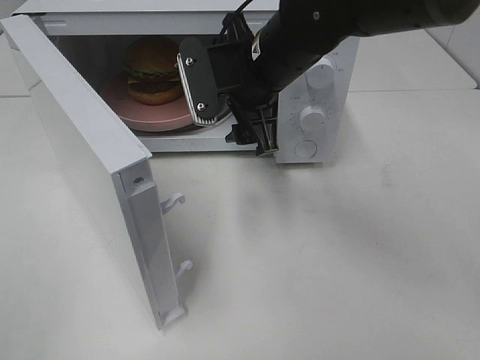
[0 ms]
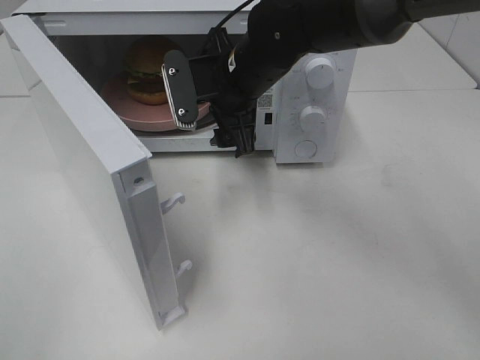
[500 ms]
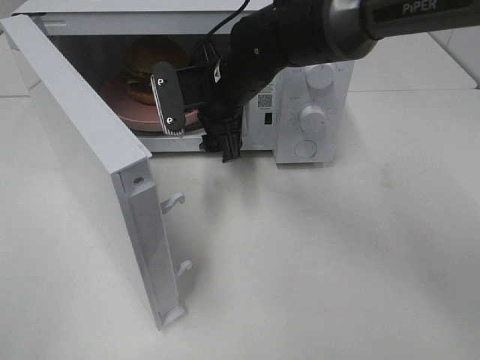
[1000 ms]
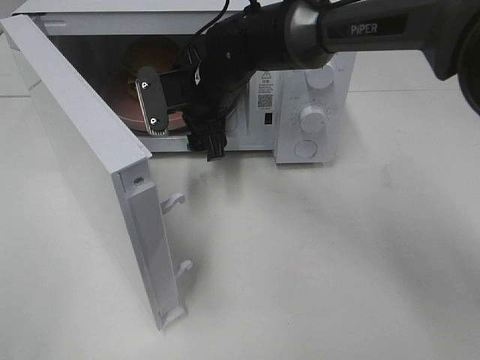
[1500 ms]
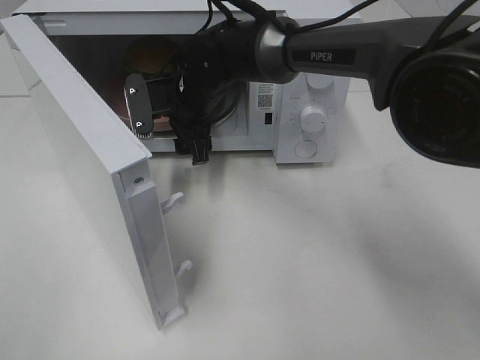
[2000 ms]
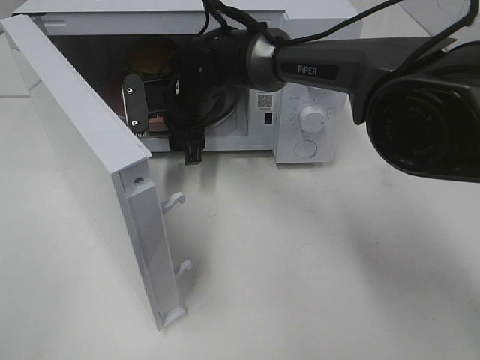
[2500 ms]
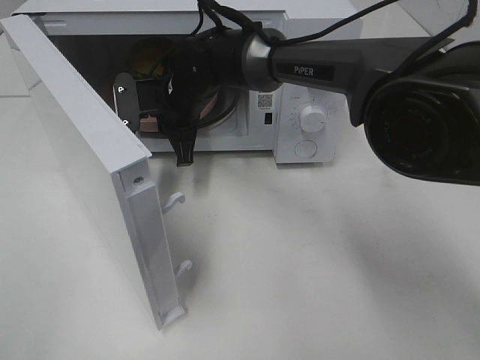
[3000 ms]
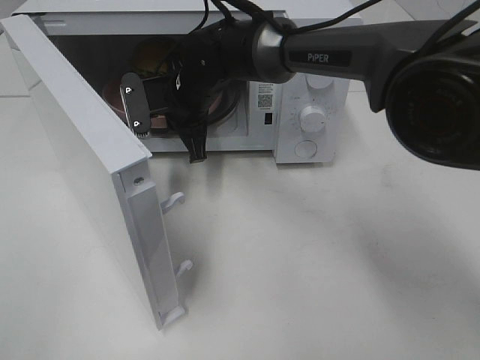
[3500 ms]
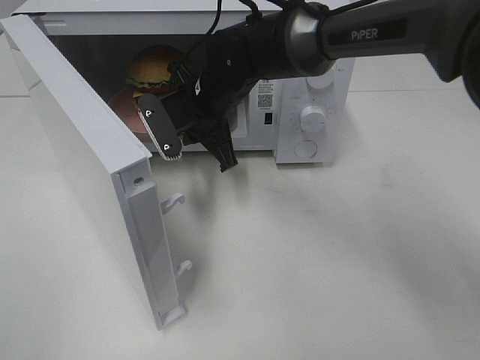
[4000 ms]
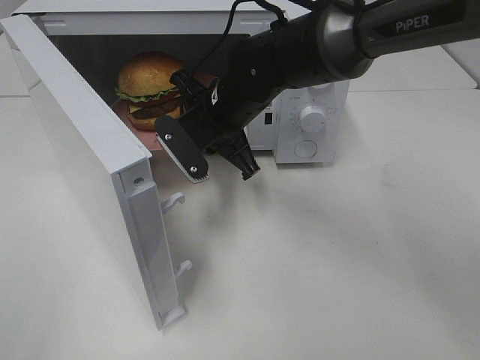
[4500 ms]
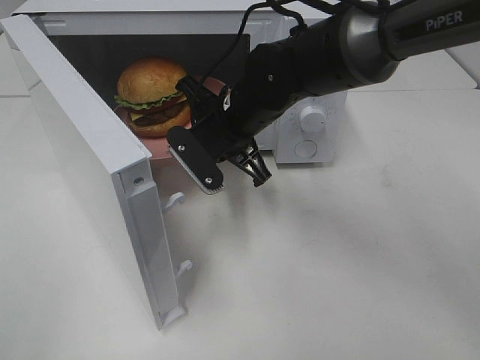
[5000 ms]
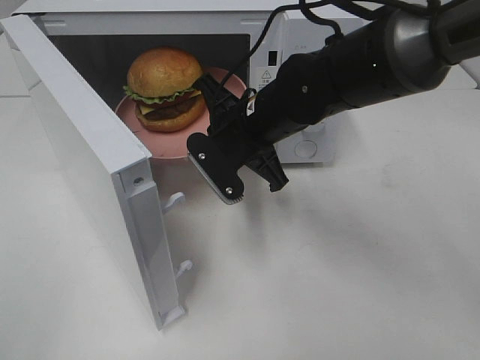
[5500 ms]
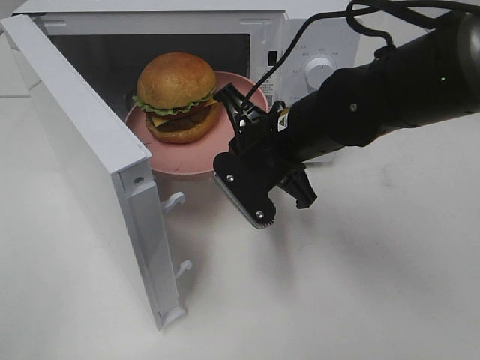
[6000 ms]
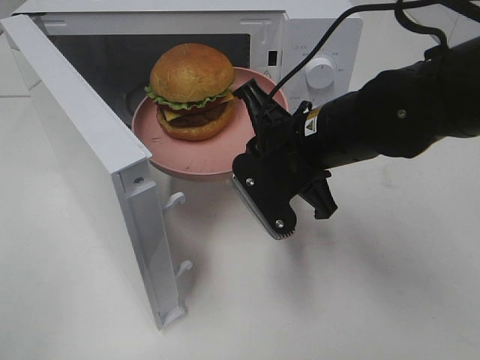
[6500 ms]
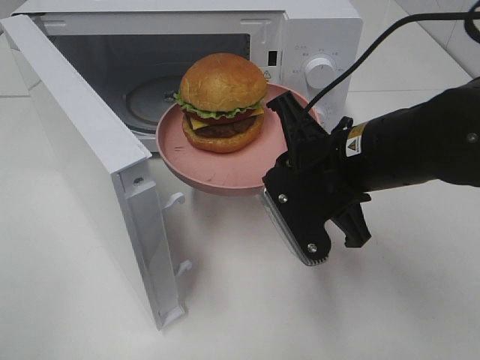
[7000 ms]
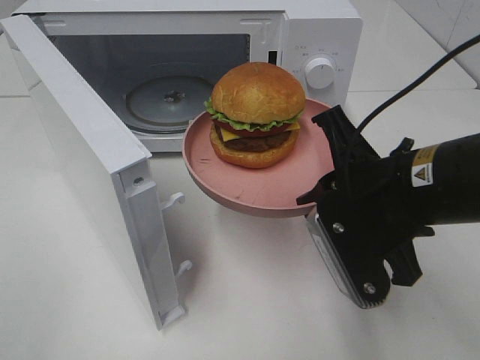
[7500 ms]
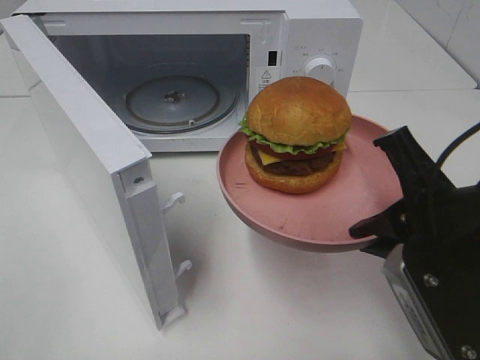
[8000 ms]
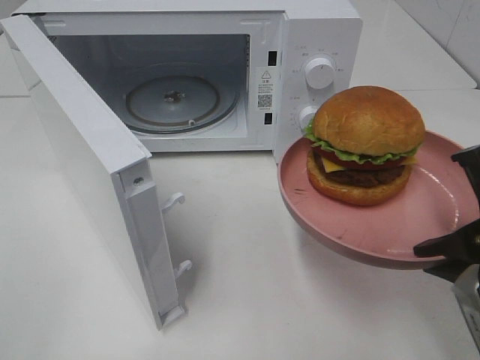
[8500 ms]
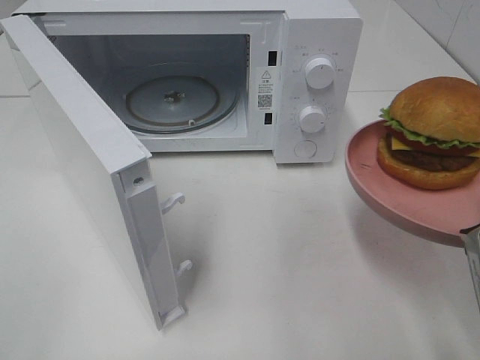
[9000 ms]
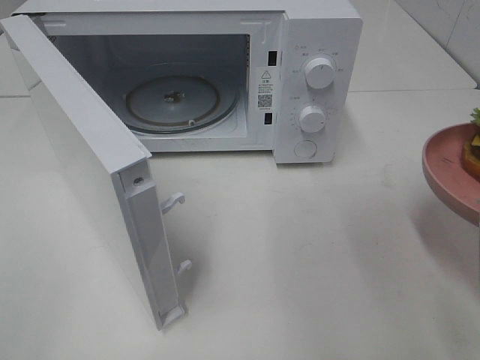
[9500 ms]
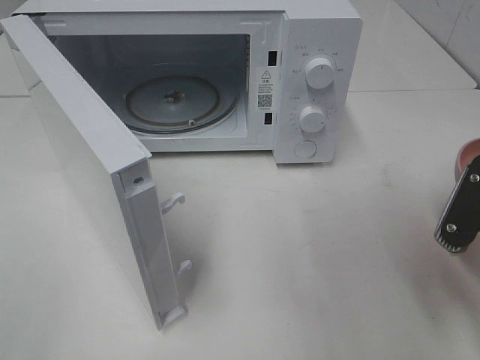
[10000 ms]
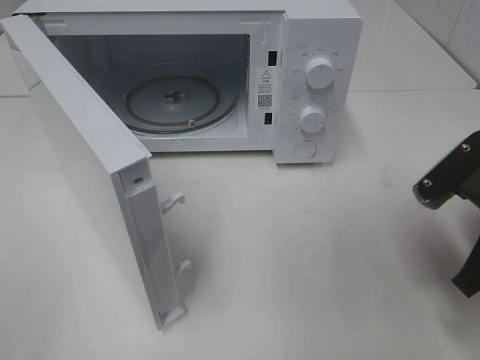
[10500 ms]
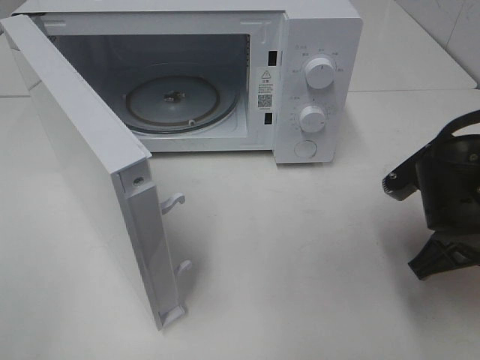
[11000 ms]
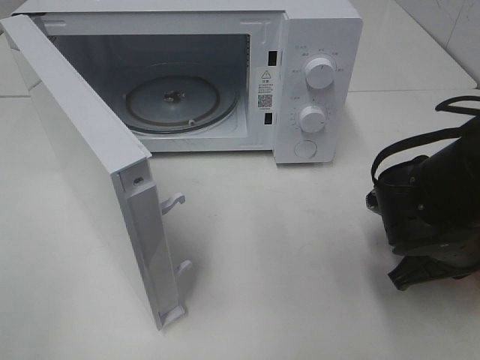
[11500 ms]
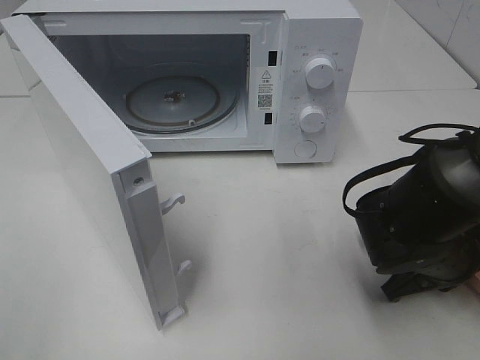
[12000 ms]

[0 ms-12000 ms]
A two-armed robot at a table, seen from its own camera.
Task of the whole recording: Heat the burger.
Step, 0 ms to 3000 ms: Right hand: grab the plate with the hamburger.
0 ms to 2000 ms: The right gripper shifts approximately 15 cm forward, to the left and downward.
2000 ms to 4000 ms: The right gripper closes.
4000 ms to 6000 ms: The right gripper travels backward and to the right by about 15 cm.
6000 ms to 8000 ms: The right gripper shifts roughly 20 cm backward and to the right.
8000 ms to 10000 ms: The right gripper travels to the right by some 5 cm.
10000 ms to 12000 ms: The right gripper is displaced downward and forward by roughly 15 cm.

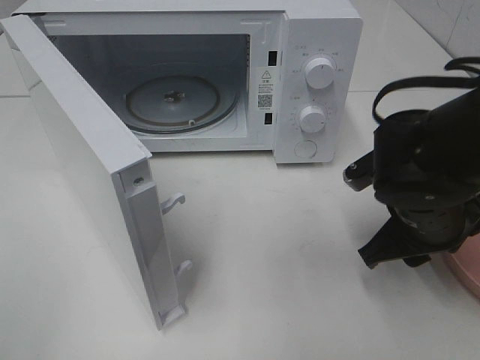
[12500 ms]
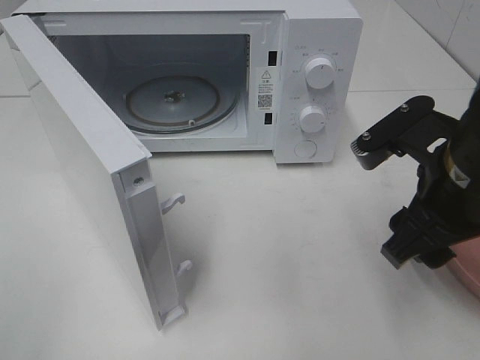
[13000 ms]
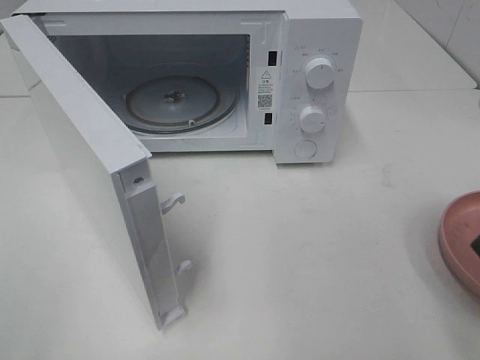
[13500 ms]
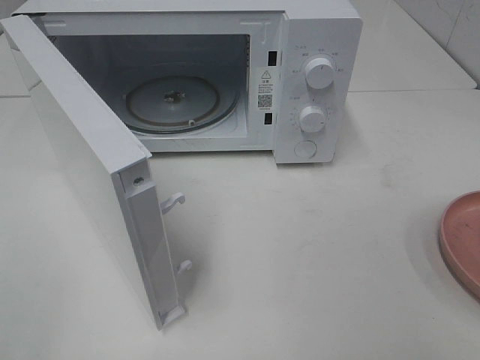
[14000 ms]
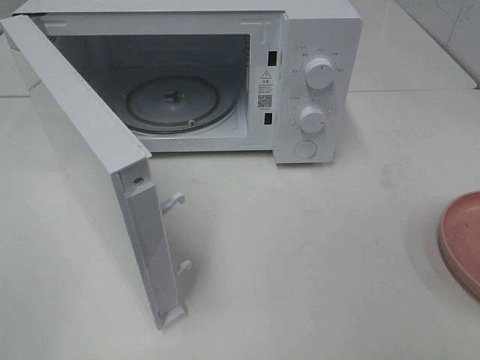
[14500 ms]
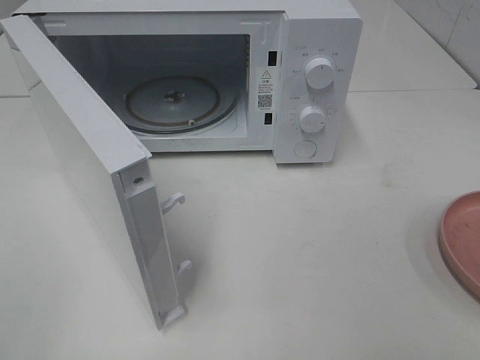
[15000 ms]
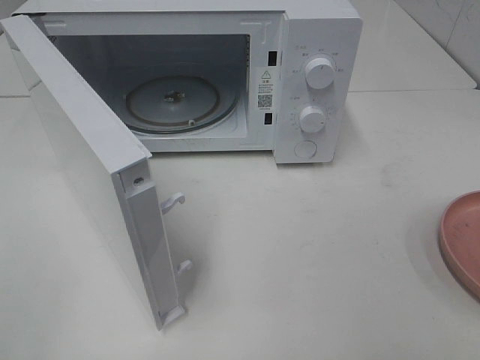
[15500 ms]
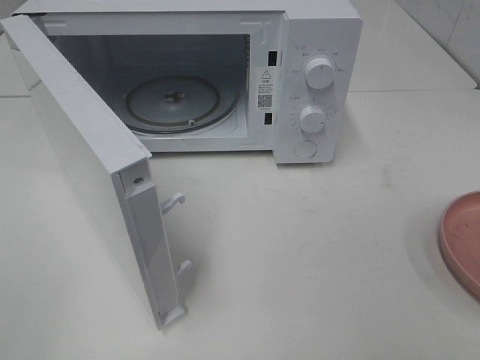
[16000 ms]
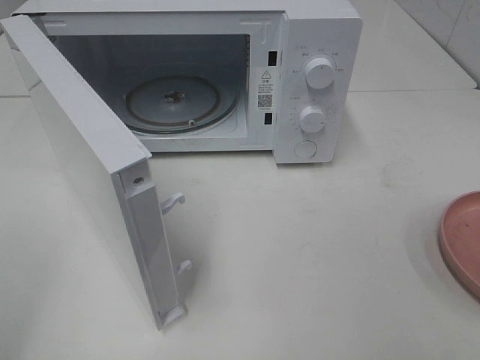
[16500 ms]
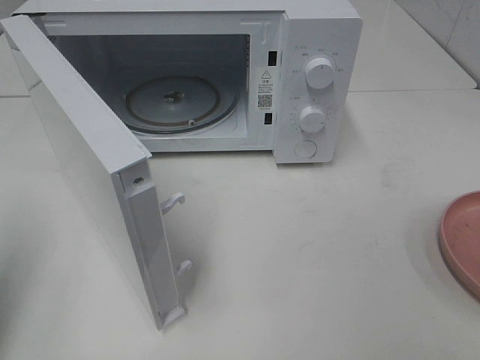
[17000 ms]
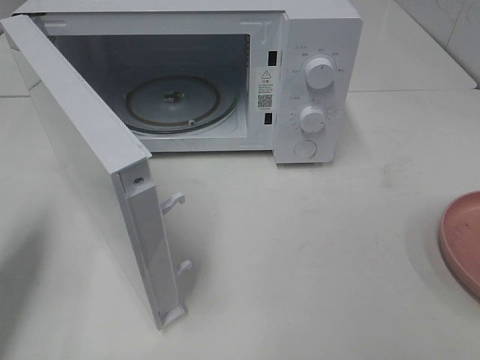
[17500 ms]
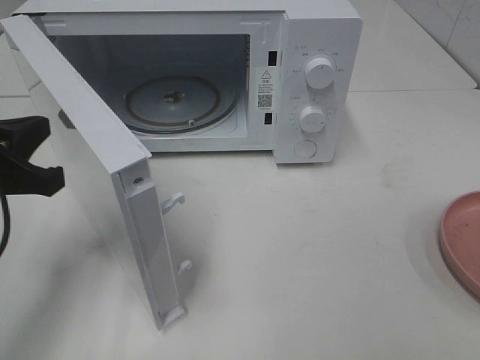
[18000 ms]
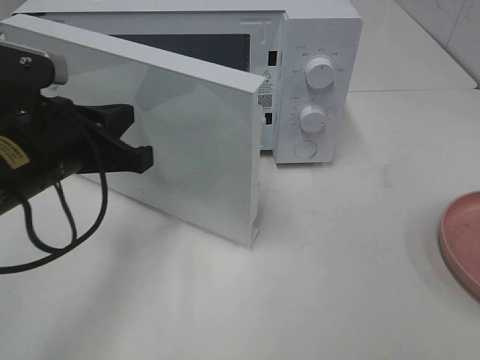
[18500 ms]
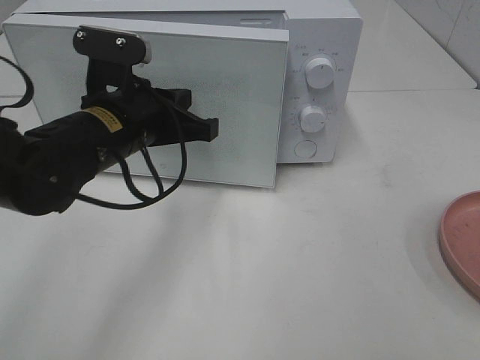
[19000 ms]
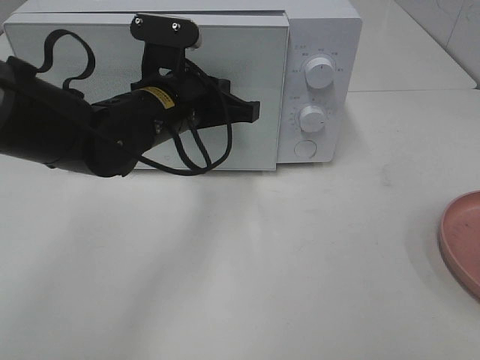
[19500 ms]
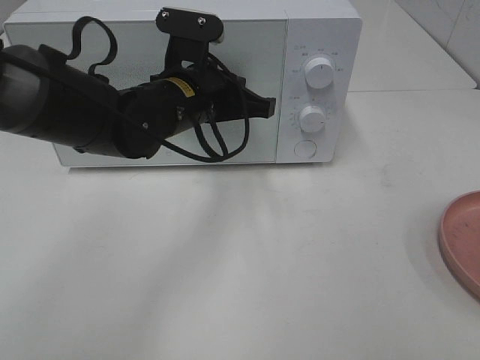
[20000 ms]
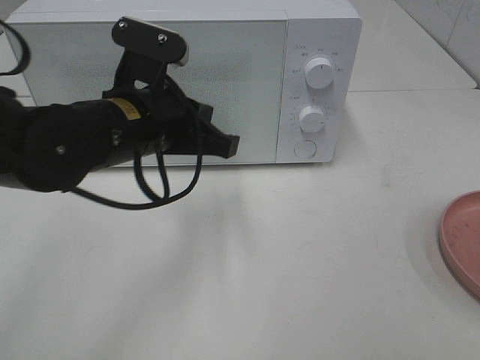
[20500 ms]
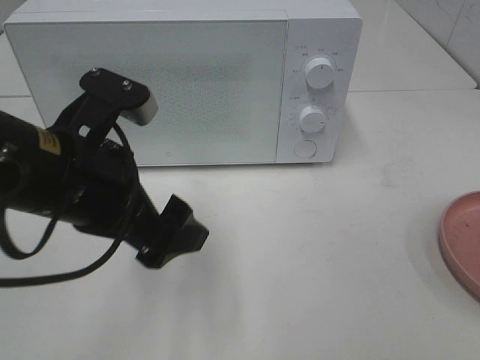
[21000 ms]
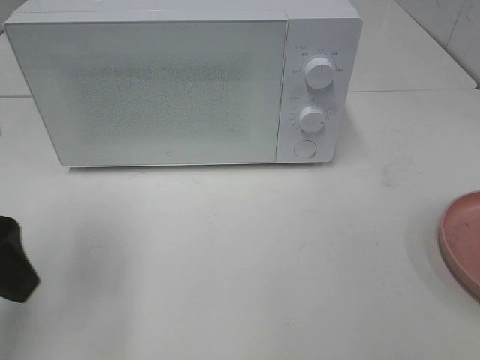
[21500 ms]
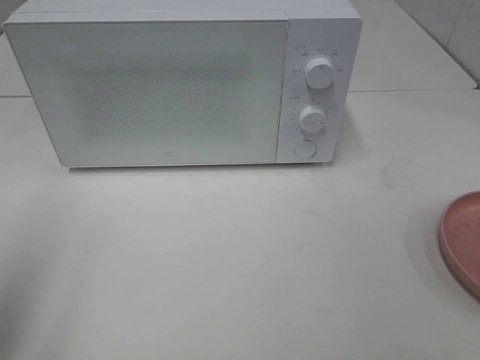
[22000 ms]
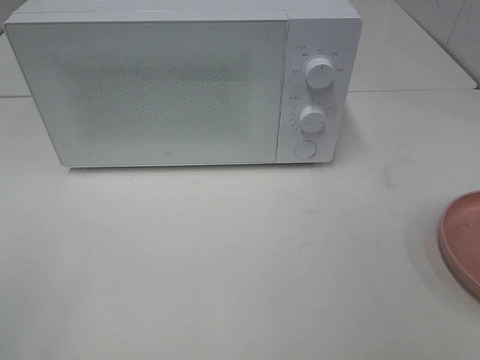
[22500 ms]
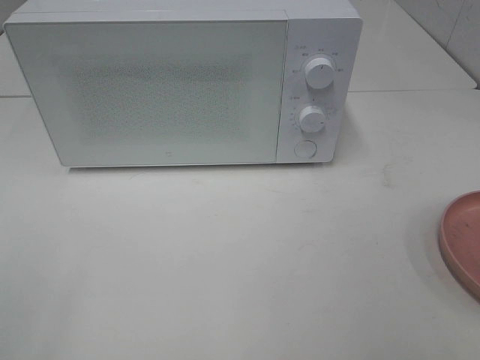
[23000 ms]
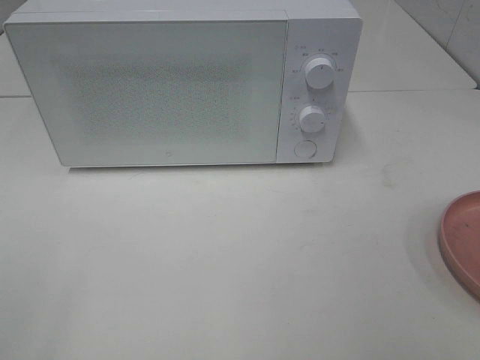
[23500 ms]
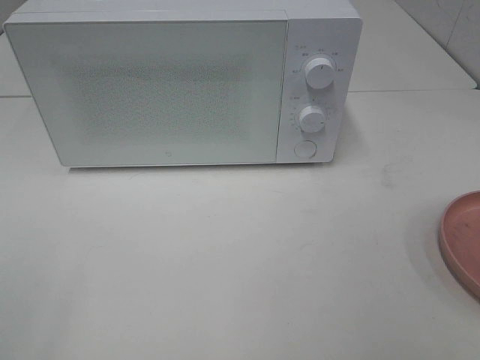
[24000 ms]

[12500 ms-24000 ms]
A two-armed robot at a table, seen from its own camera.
Task of the whole recording: Heat the burger.
Step, 12500 ms to 20500 ms: Left hand: close the microwave door.
12500 ms to 14500 ms: The right gripper moves backward, upward and to the right, roughly 30 cm.
16500 ms to 18500 ms: The left gripper shifts some 25 cm forward, to the right and downward, and closes its fingers.
18500 ms to 20000 ms: The left gripper shifts roughly 15 cm to the right and forward.
20000 ms to 22000 ms: The left gripper goes approximately 35 cm to the left, backward and upward, and opens up.
22000 ms to 24000 ms: The left gripper is displaced backward by roughly 10 cm.

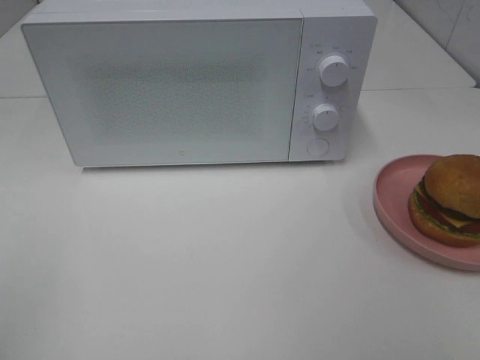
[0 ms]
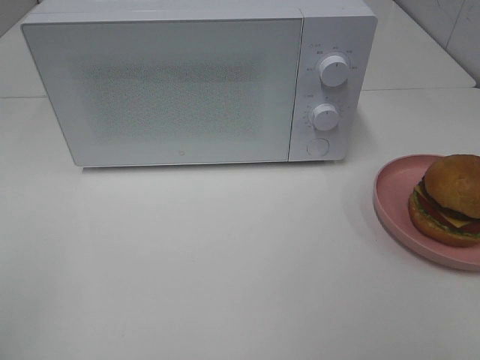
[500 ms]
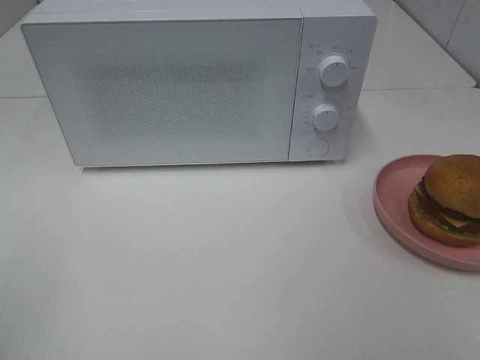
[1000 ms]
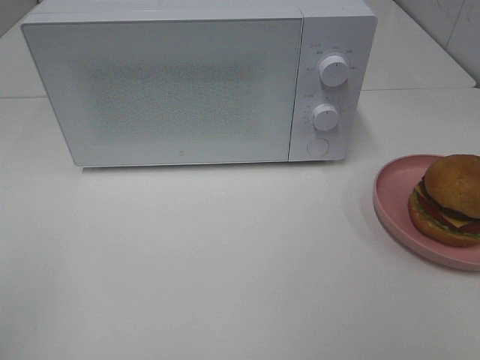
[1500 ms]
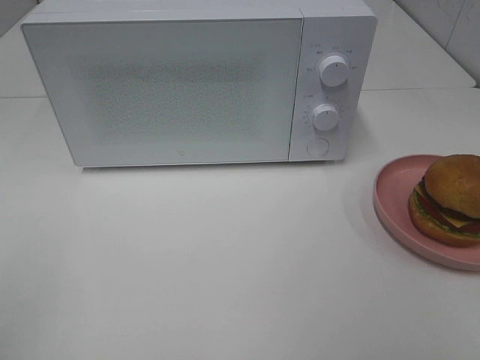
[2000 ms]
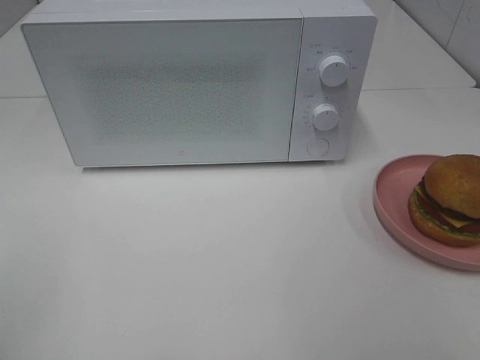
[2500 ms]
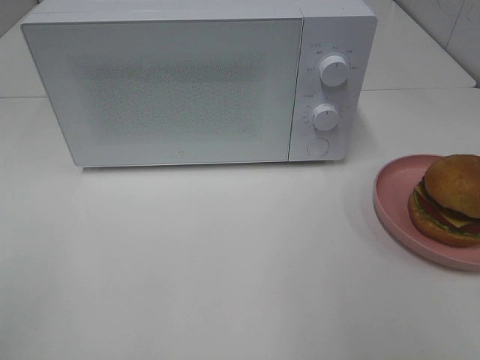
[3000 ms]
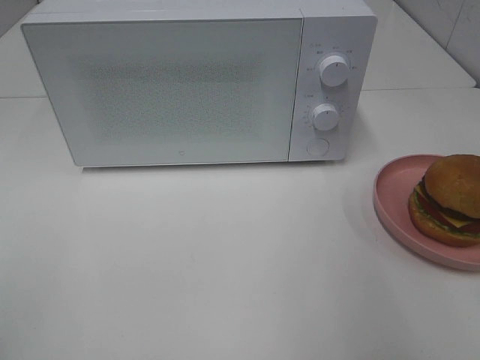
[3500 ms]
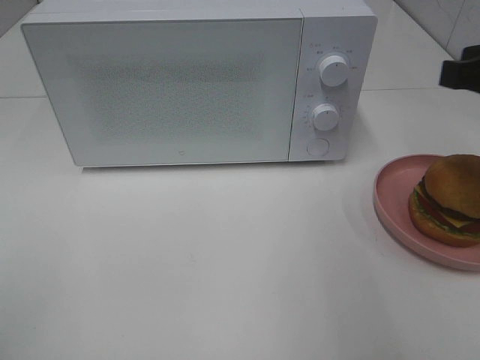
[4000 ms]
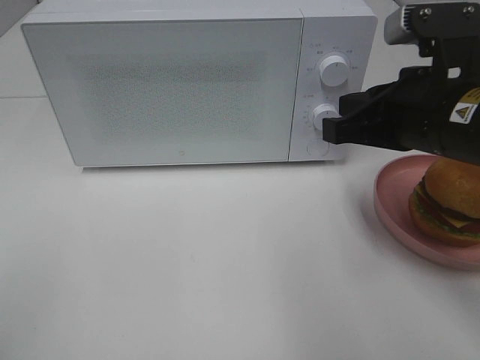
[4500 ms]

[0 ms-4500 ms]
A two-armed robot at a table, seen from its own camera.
Task of the whole recording: Heat the burger.
0 ms to 2000 ms: Both grippers stay about where they are.
2000 ms to 4500 ms: The right gripper moves forward and to the left, some 25 cm, and closes up.
